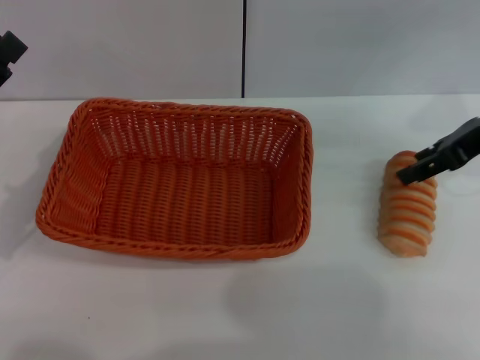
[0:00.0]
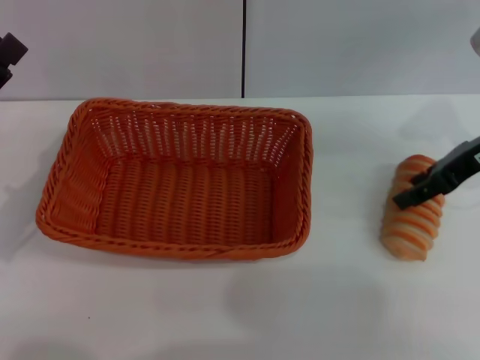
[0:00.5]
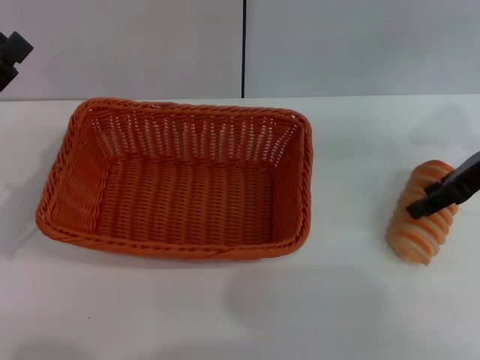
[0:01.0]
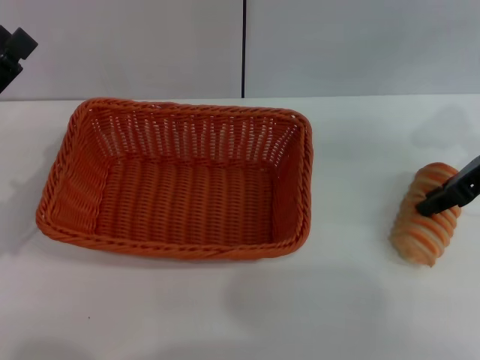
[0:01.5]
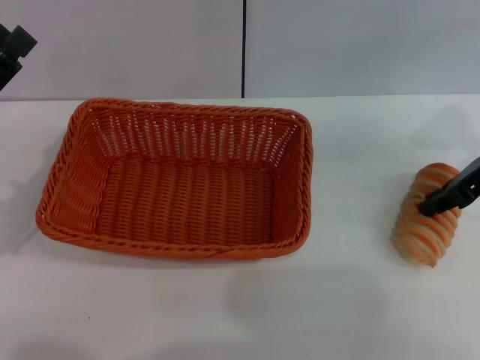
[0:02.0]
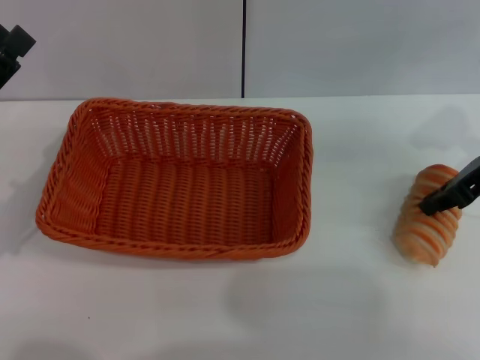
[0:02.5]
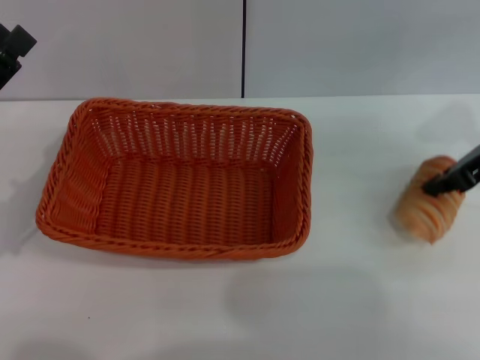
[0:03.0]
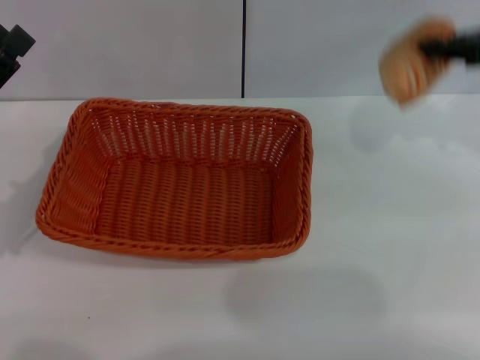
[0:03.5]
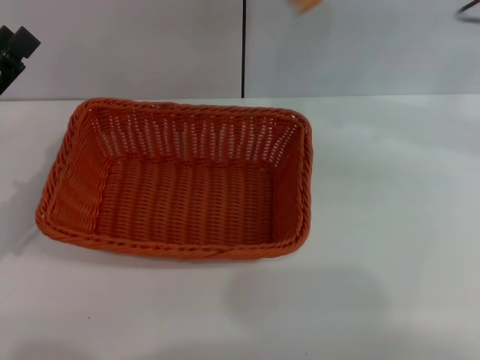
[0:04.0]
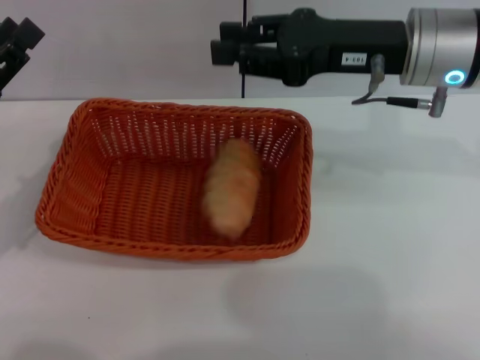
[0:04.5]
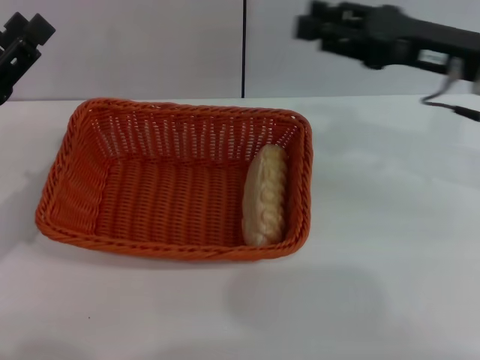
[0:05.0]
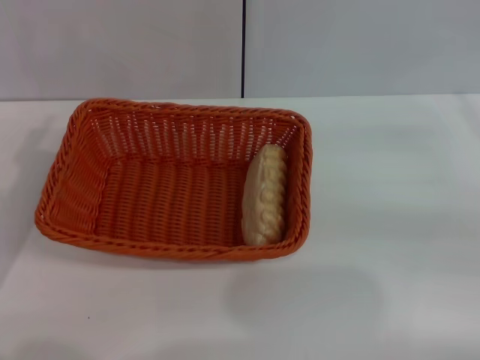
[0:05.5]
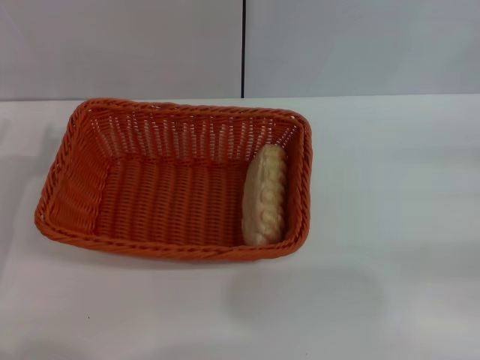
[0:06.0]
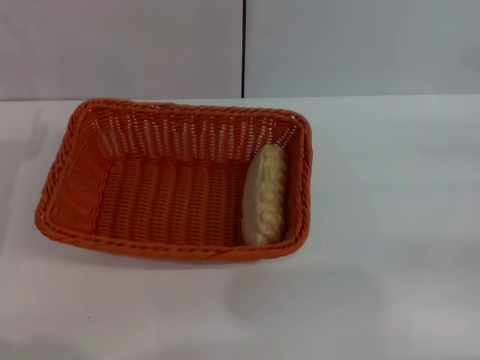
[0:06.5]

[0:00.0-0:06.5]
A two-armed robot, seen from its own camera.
Step, 0:00.0 to 0:03.0: Pick up the long bread with the right gripper.
Step, 0:03.5 to 0:04.5: Place the long bread into the light basket with the right gripper.
0:00.0 to 0:02.0: The right gripper closes up.
0:02.0 to 0:04.5: The right gripper is displaced to the left and upward by approximately 15 cm.
0:04.5 to 0:06.5: The right gripper is displaced to the right, downward and backward by roughly 30 cm, and opens its fingers.
